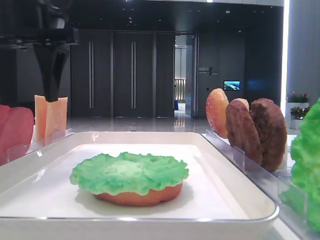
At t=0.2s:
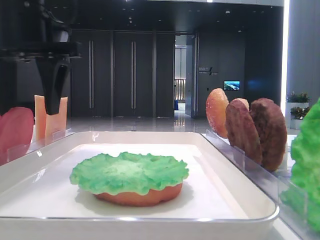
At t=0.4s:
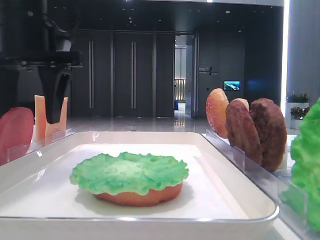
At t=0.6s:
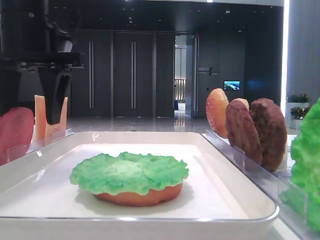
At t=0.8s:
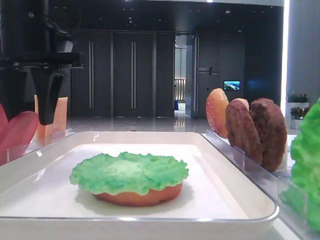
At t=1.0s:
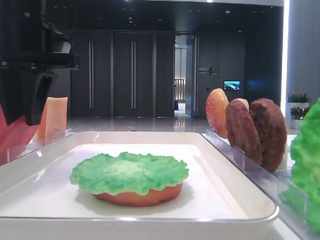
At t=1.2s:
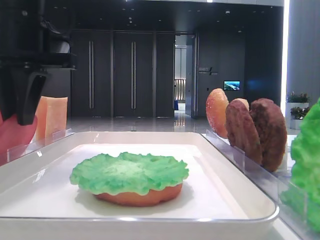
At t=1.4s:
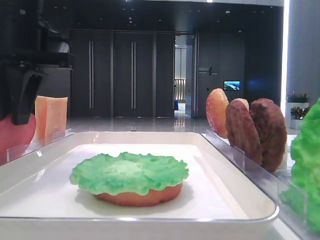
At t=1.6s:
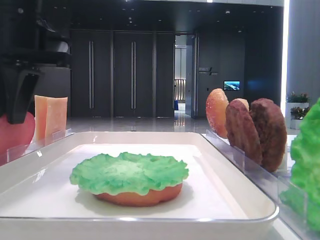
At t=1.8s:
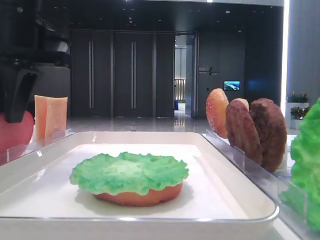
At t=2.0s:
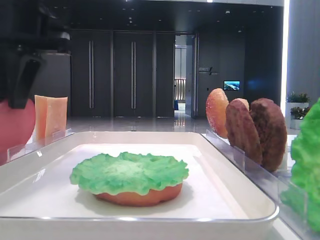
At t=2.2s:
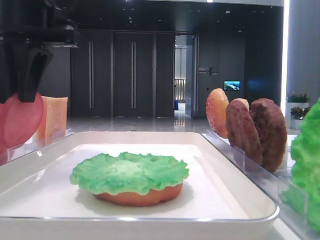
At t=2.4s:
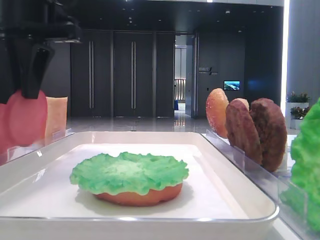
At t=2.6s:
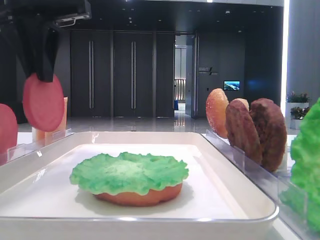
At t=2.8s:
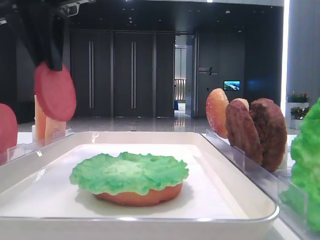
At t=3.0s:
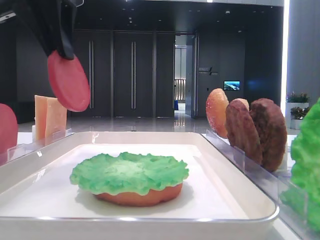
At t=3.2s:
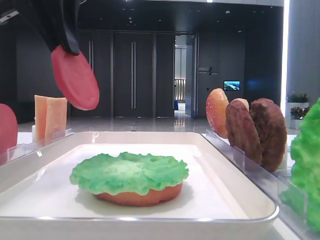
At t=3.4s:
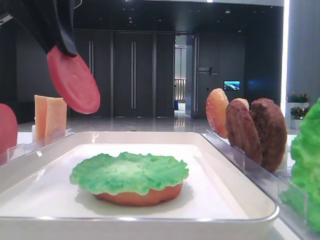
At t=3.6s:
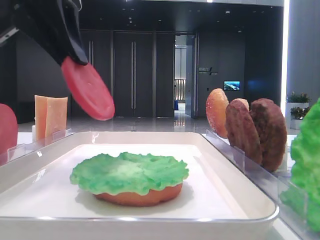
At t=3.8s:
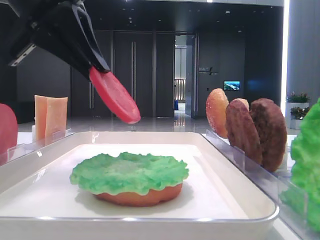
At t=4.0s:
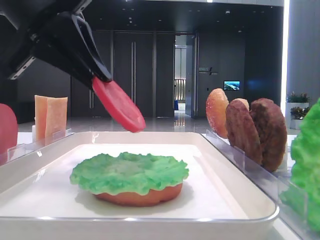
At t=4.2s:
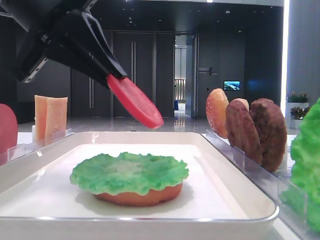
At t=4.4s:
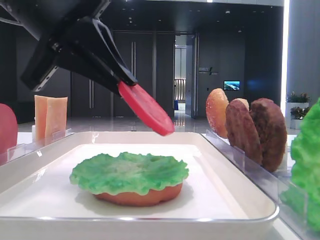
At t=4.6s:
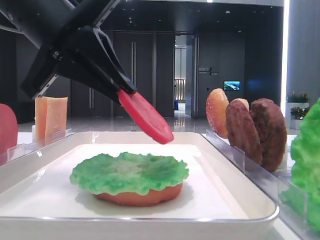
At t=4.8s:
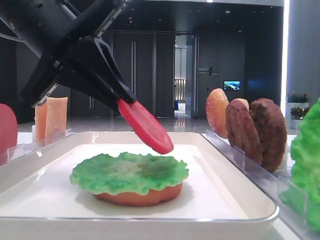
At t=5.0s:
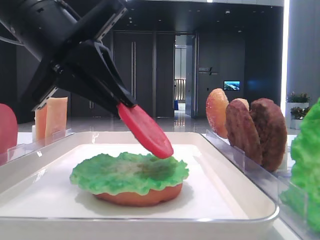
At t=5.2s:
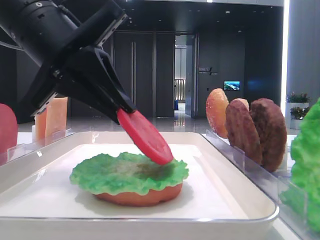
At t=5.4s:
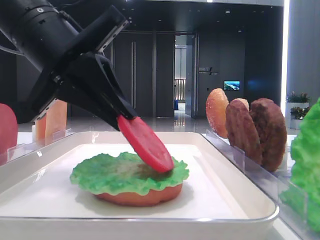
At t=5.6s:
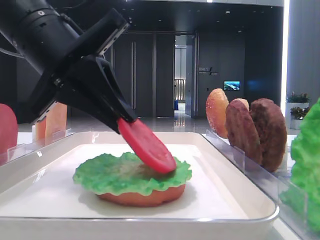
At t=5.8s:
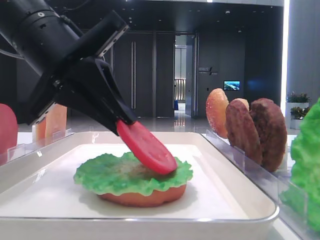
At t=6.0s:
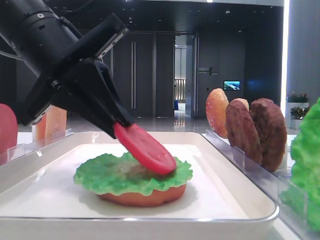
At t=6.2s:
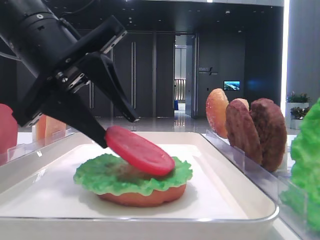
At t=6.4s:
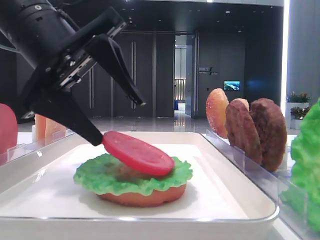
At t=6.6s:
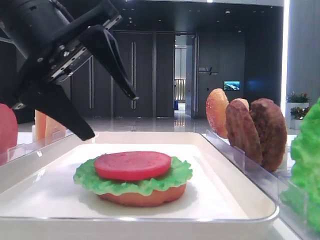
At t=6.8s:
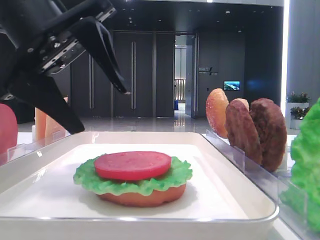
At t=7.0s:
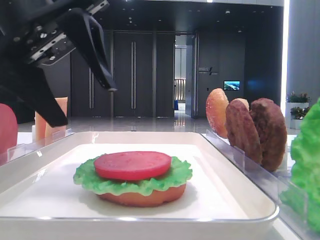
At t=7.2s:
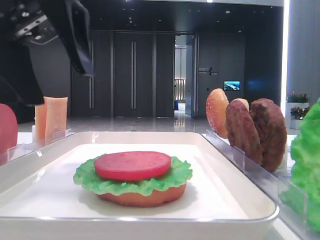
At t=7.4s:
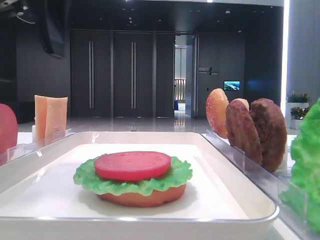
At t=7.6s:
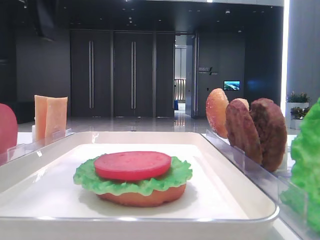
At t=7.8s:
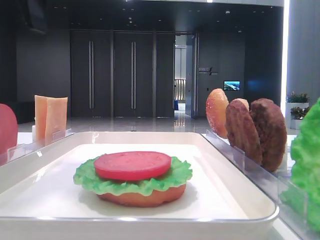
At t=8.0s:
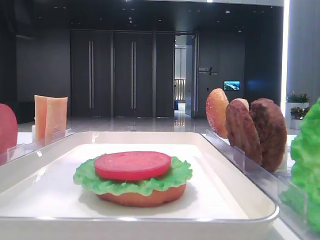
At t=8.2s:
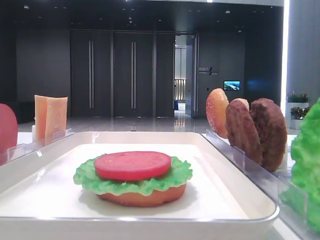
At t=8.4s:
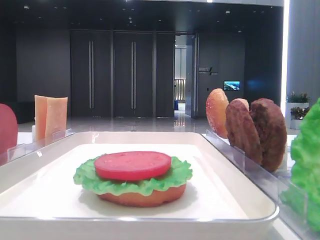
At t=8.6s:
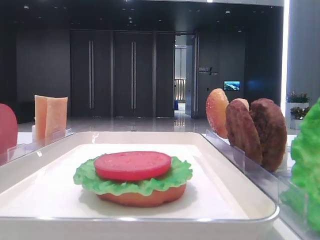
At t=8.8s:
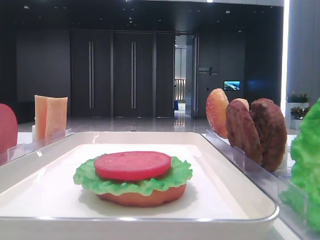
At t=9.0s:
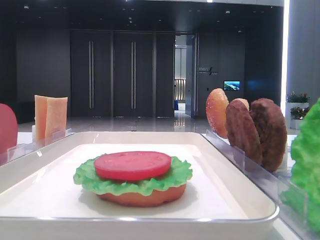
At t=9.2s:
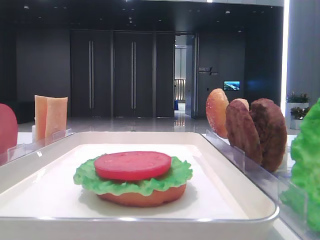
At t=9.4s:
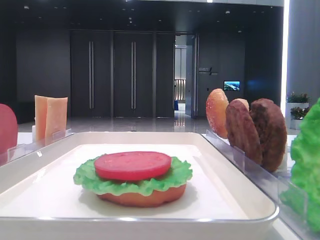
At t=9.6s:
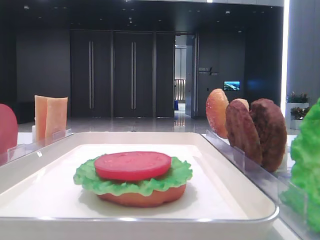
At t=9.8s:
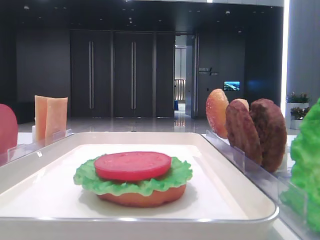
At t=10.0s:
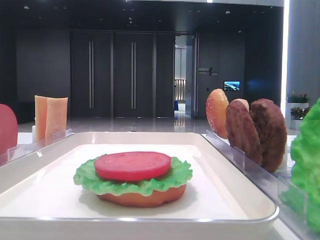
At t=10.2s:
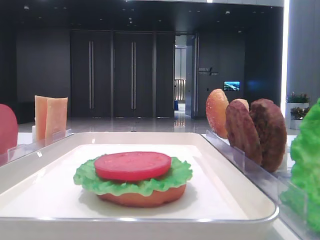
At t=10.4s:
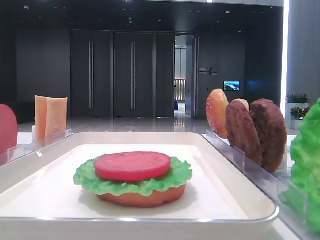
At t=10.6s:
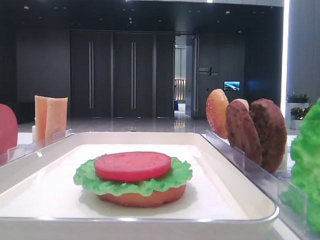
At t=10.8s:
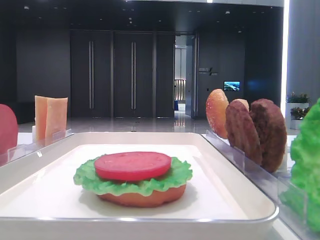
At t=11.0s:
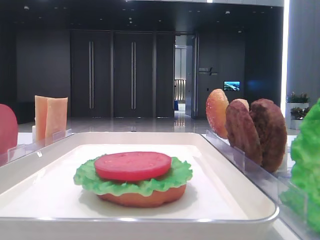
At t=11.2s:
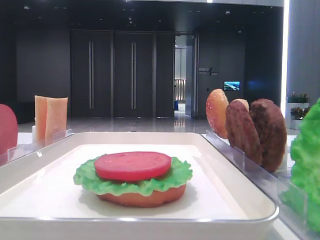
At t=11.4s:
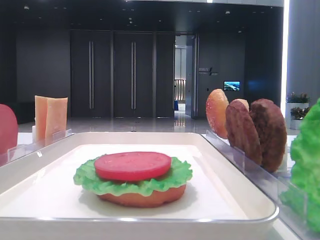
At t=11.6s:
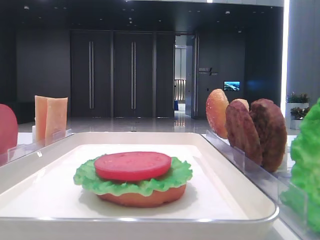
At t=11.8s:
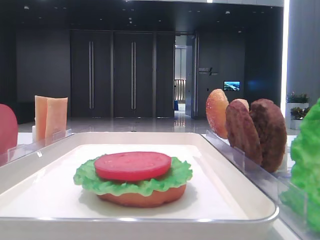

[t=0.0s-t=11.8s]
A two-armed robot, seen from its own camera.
Step, t=1.8s to t=6.4s: Place the tomato slice on the lettuce leaf with the left hand.
t=0.0s to t=1.4s: The left gripper closes its fingers.
t=1.4s to t=3.0s: The left gripper moves upward, some 5 cm.
t=3.0s to t=4.4s: The left gripper is displaced downward by roughly 10 cm.
t=4.4s to t=6.0s: The grippers stay close to where they were, moving slightly.
t=6.0s to t=7.4s: The left gripper moves upward, about 10 cm, and opens.
t=7.4s to t=8.8s: The left gripper goes about 20 cm to the left.

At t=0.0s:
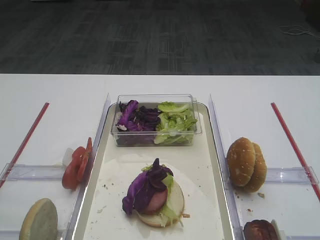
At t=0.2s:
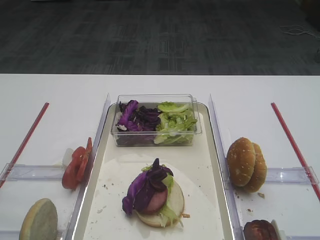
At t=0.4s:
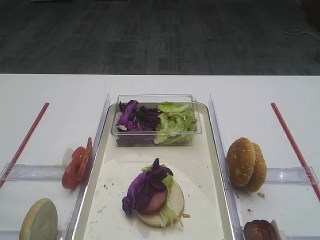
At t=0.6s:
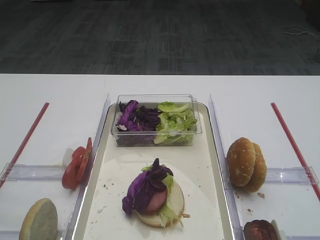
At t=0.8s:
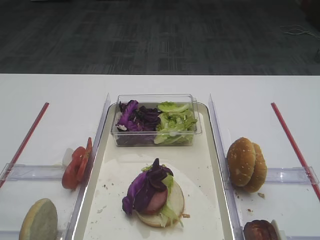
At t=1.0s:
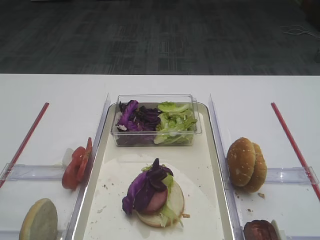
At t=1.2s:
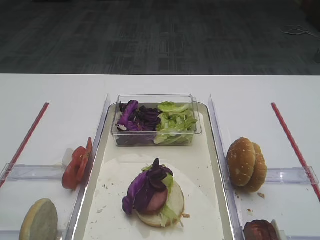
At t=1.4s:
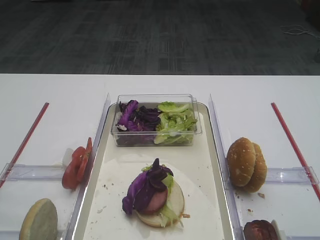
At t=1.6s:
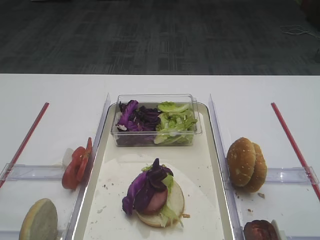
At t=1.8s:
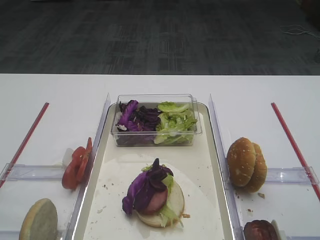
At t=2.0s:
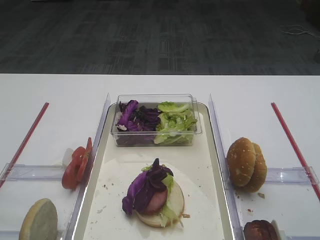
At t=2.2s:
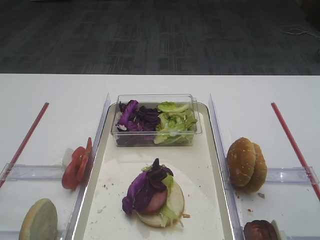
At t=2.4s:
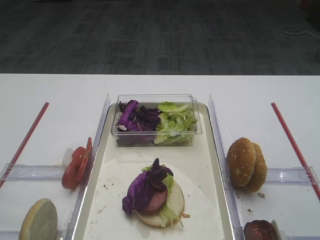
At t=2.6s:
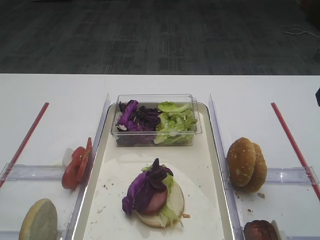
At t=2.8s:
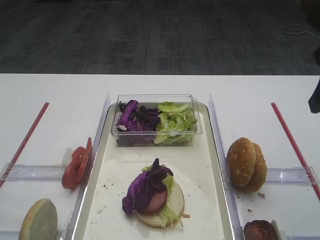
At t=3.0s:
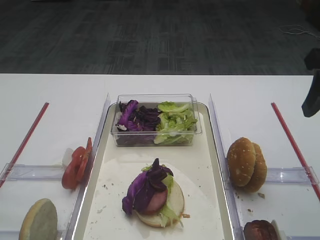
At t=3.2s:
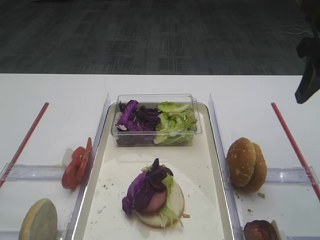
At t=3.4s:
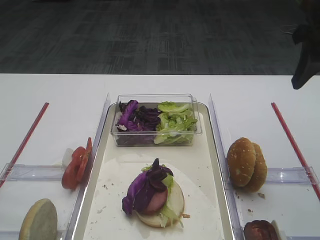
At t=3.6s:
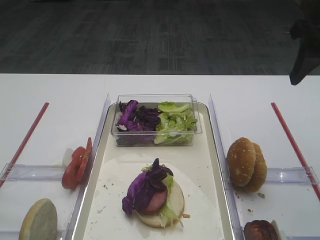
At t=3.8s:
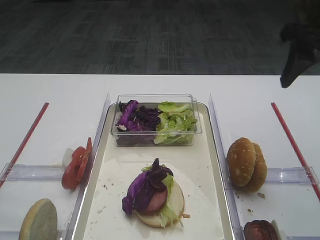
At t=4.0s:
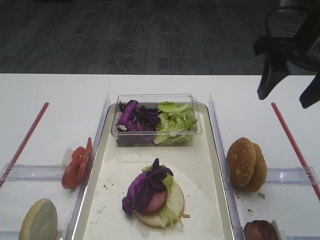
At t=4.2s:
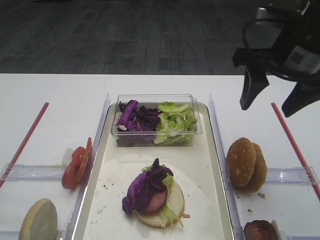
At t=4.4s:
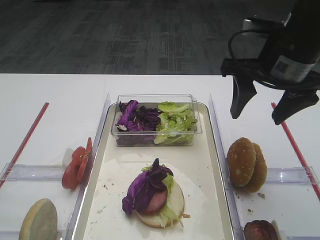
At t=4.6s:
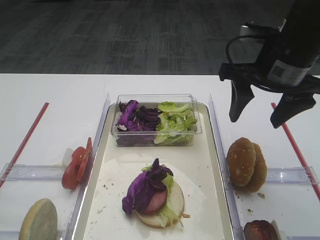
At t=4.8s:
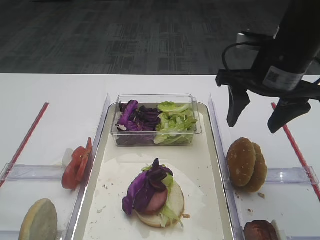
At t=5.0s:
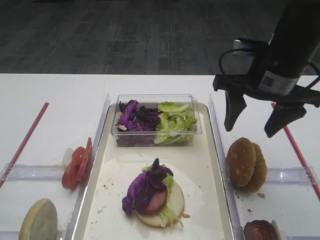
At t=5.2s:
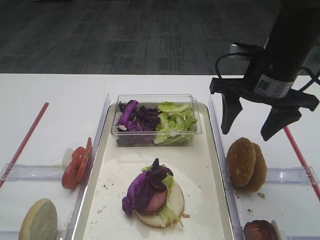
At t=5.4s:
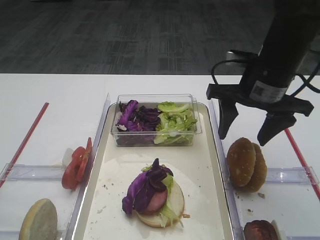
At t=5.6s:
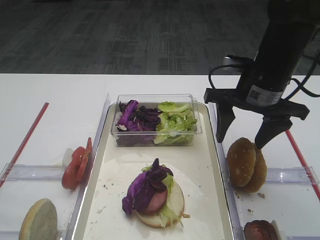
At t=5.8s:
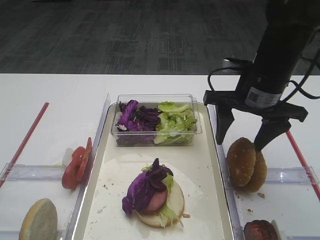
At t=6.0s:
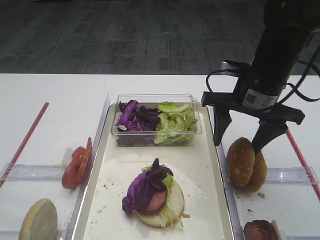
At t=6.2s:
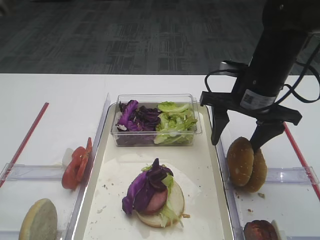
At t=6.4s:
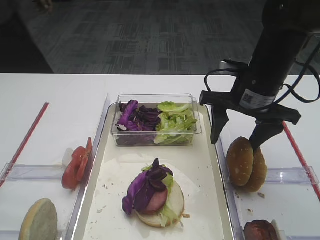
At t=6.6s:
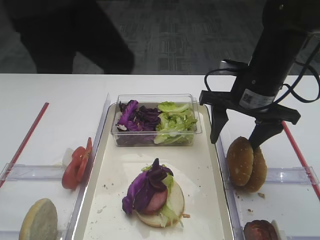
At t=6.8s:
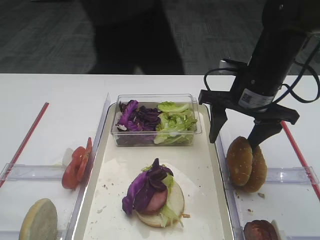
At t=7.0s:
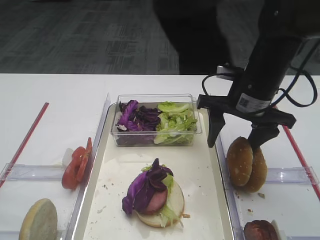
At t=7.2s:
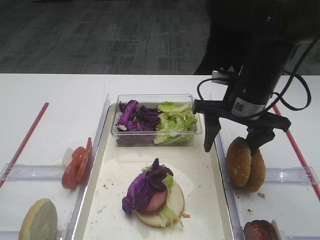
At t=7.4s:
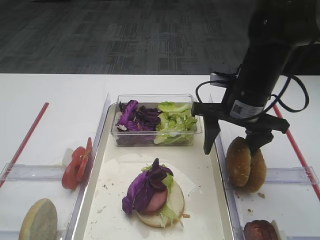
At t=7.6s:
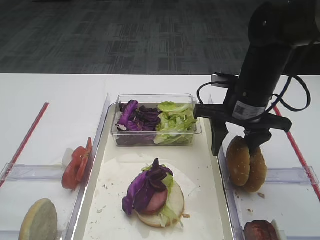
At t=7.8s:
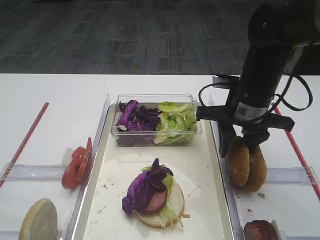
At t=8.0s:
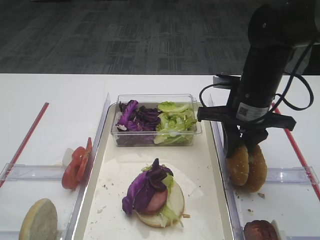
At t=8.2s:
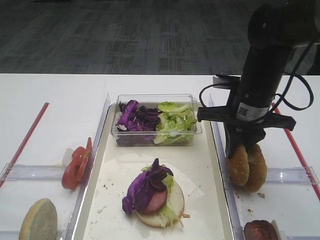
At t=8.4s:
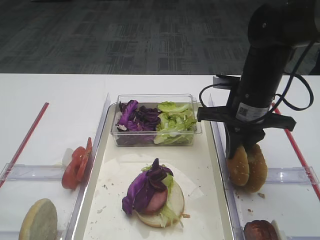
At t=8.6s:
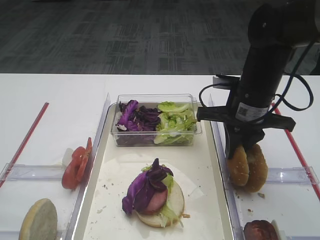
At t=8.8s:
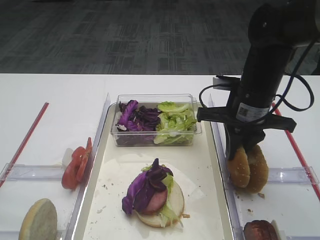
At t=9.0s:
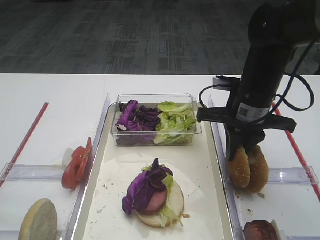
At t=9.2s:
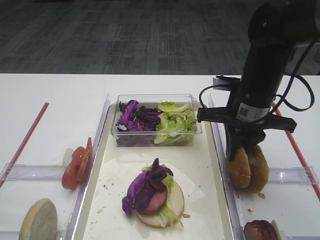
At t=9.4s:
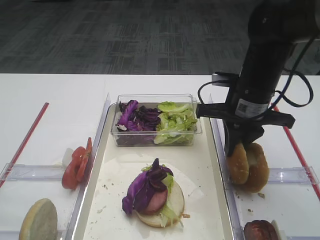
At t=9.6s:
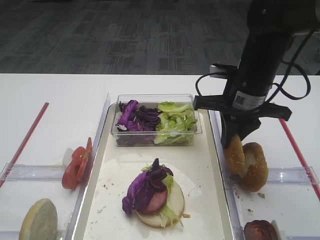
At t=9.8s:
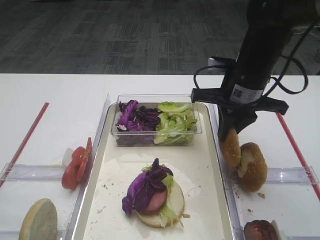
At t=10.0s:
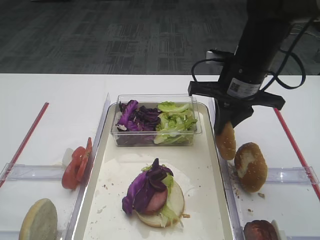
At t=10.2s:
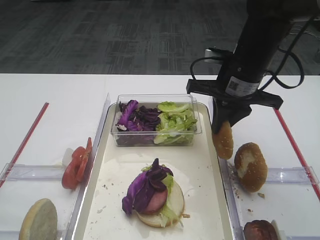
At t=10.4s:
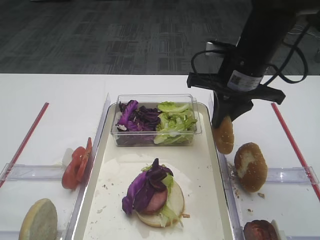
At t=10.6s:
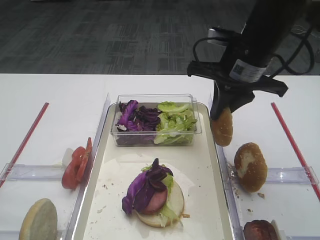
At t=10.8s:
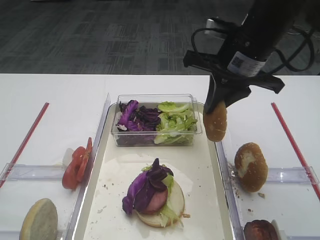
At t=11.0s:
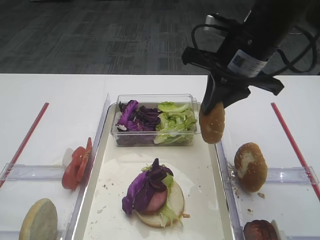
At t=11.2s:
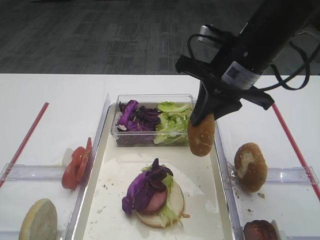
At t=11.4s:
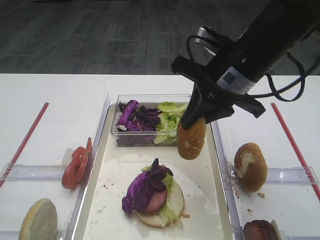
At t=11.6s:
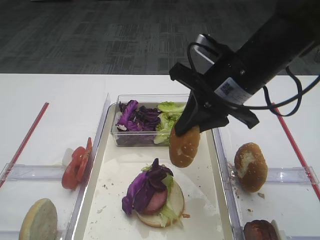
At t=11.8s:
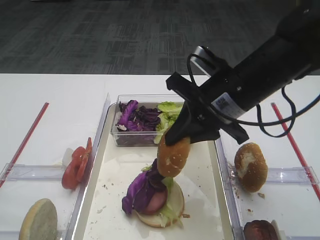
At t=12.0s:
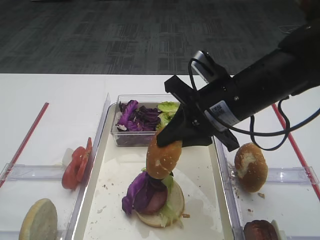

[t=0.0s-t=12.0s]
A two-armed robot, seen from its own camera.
Step, t=0.0s to t=10.2s: Pick up the hamburger lid with the right gripper.
t=1.6s to t=3.0s: The right gripper travels forward by roughly 15 cm.
t=3.0s to t=4.4s: The right gripper heads to the left and forward, covering about 10 cm.
t=4.4s to t=6.0s: The right gripper travels downward by roughly 5 cm.
t=6.0s to t=7.6s: The grippers move only a little.
t=7.6s to t=9.0s: The right gripper closes up.
t=9.0s to t=10.4s: The right gripper changes place by approximately 5 cm.
t=10.4s to t=12.0s: The right gripper heads backward, covering approximately 5 cm.
